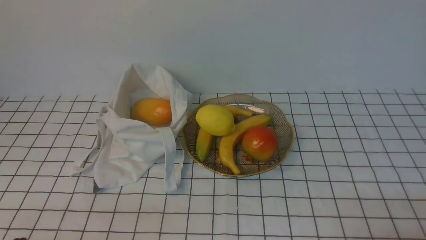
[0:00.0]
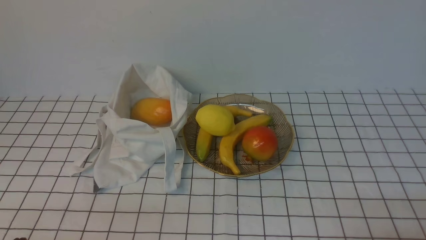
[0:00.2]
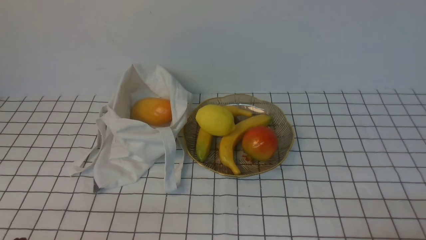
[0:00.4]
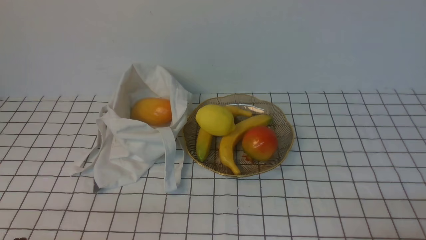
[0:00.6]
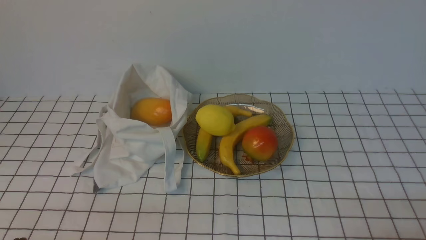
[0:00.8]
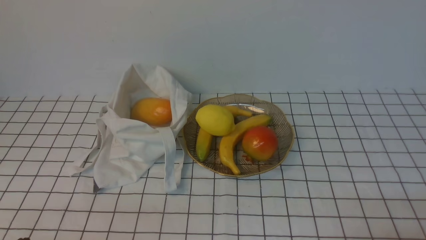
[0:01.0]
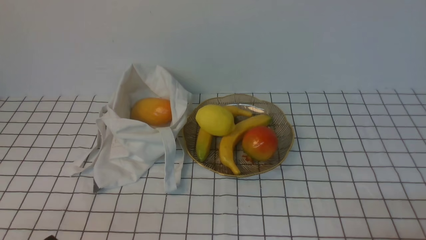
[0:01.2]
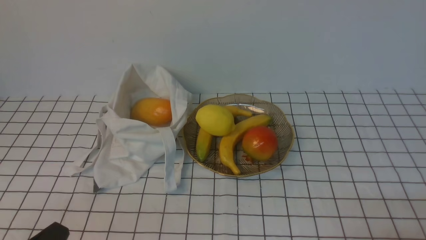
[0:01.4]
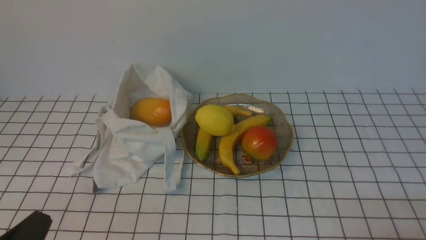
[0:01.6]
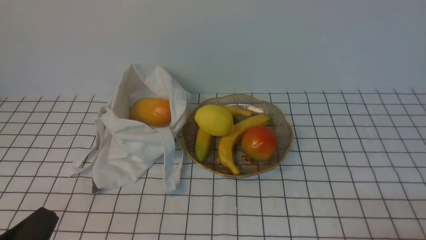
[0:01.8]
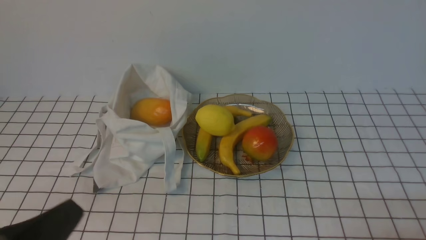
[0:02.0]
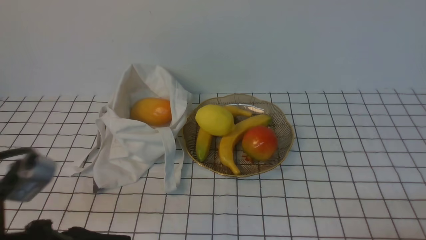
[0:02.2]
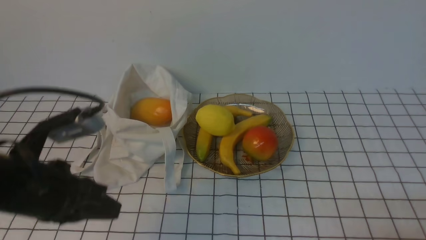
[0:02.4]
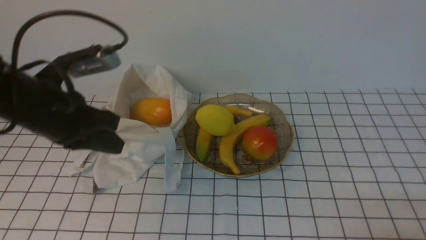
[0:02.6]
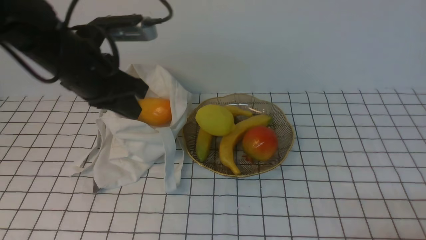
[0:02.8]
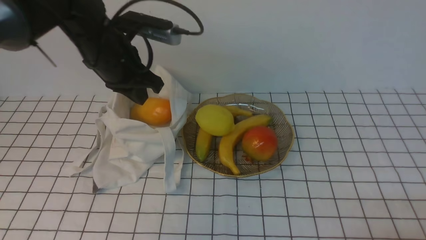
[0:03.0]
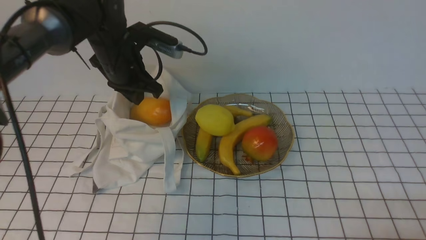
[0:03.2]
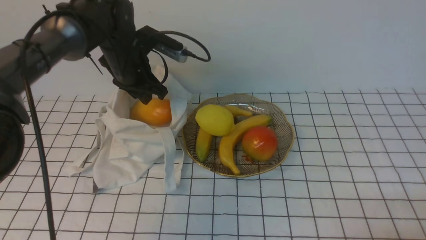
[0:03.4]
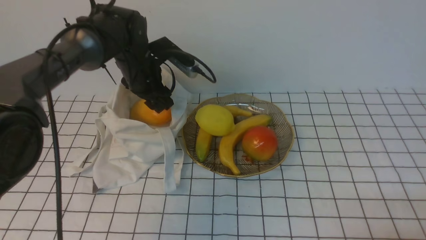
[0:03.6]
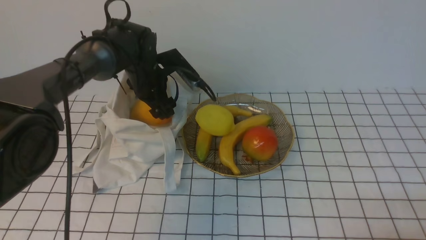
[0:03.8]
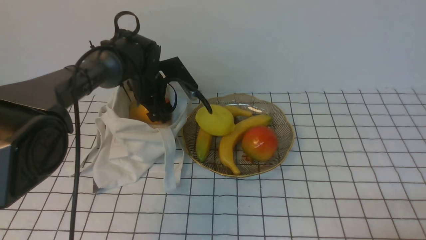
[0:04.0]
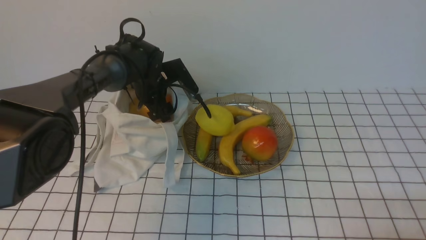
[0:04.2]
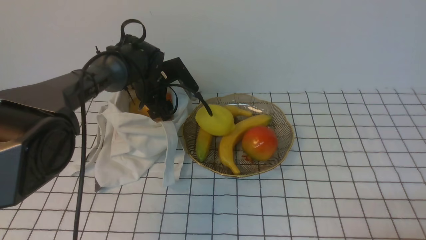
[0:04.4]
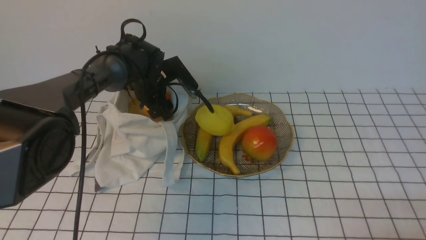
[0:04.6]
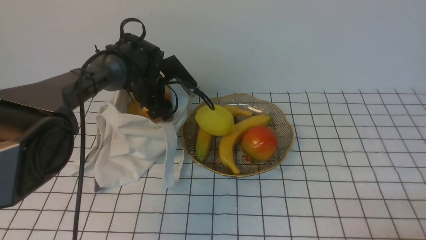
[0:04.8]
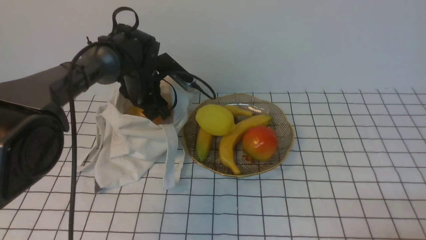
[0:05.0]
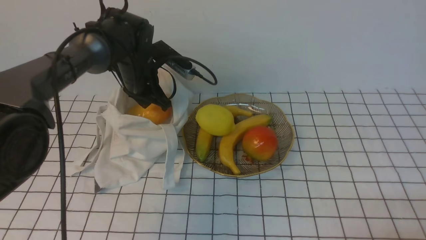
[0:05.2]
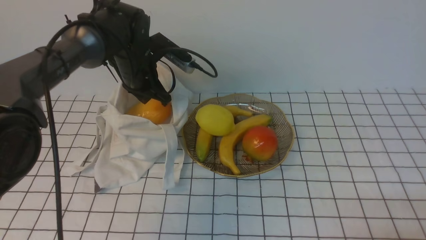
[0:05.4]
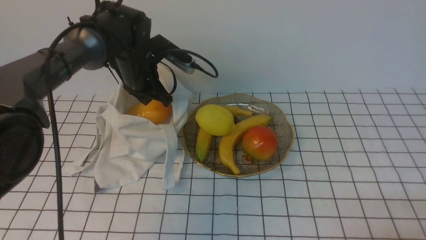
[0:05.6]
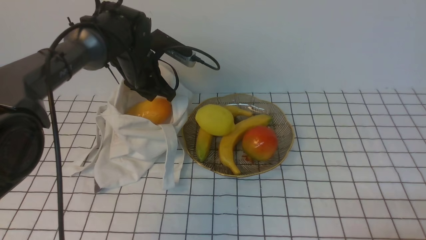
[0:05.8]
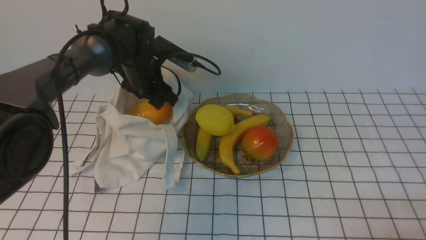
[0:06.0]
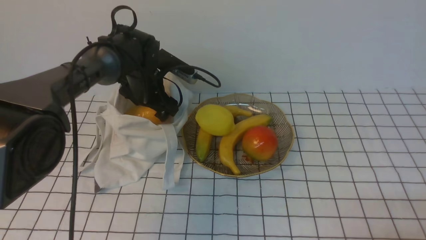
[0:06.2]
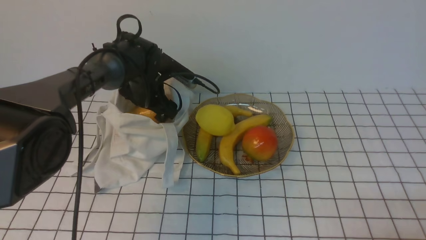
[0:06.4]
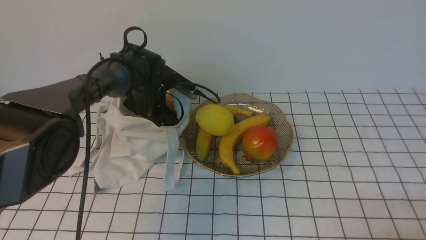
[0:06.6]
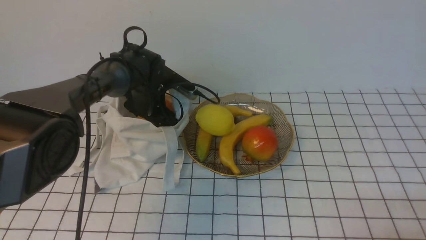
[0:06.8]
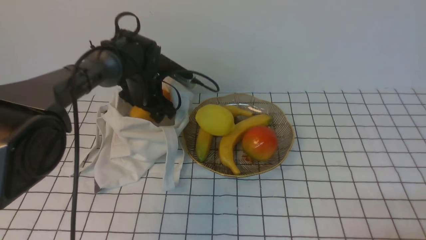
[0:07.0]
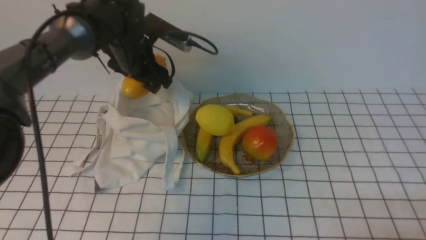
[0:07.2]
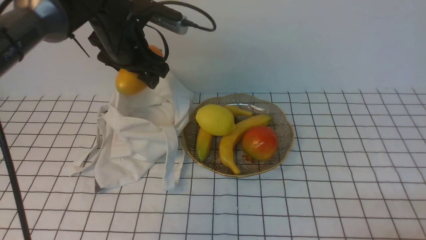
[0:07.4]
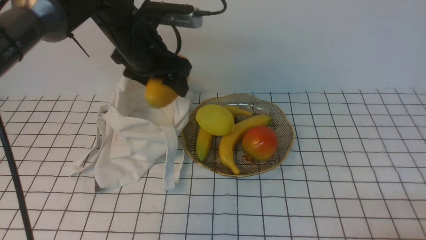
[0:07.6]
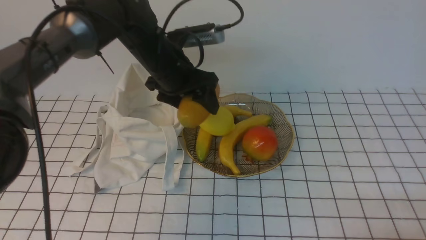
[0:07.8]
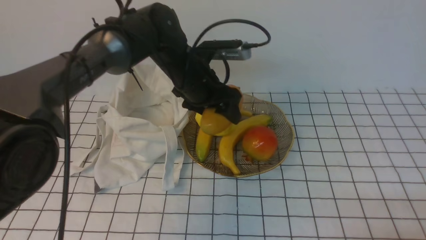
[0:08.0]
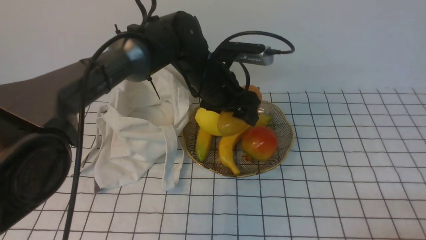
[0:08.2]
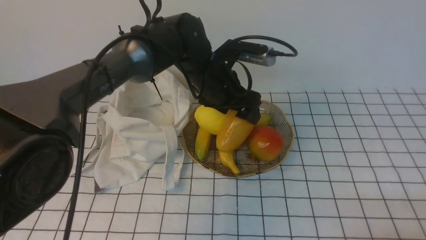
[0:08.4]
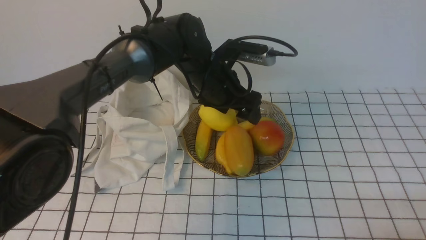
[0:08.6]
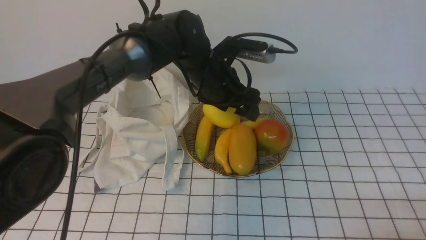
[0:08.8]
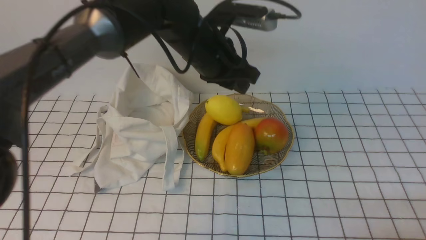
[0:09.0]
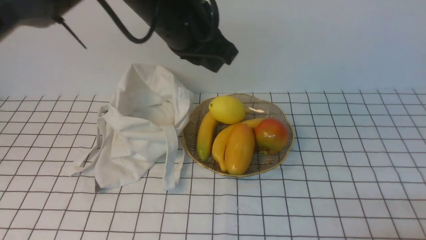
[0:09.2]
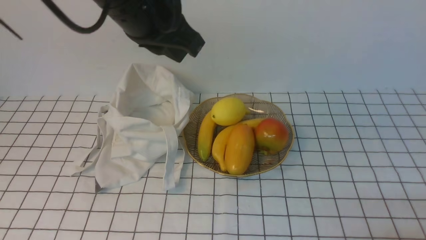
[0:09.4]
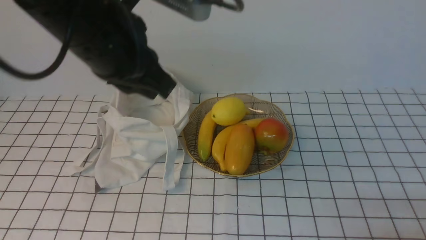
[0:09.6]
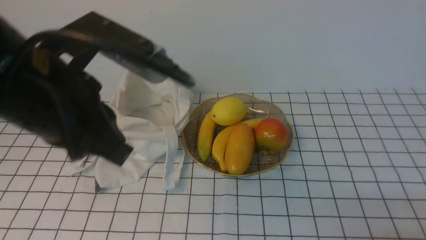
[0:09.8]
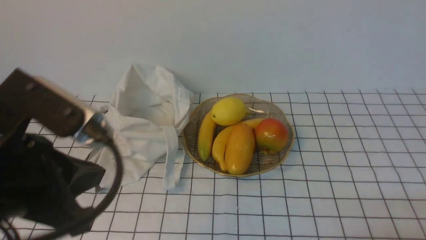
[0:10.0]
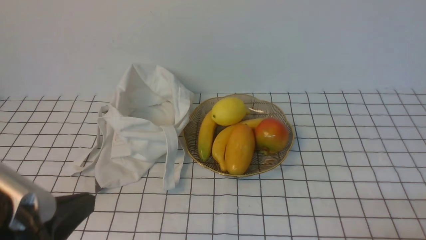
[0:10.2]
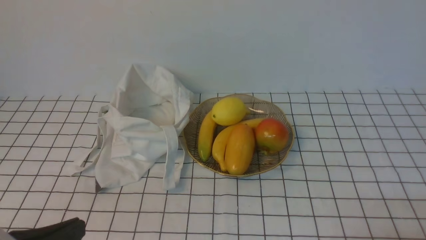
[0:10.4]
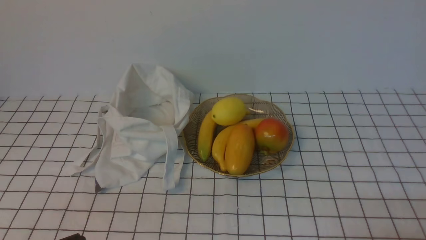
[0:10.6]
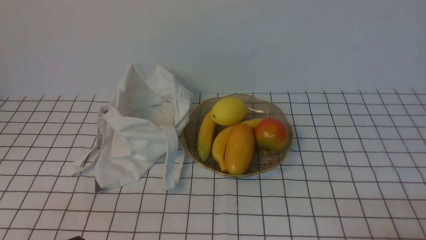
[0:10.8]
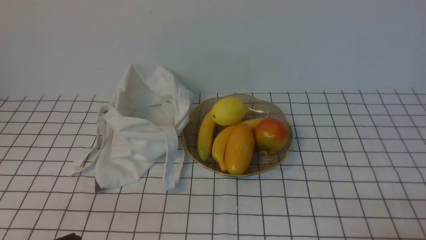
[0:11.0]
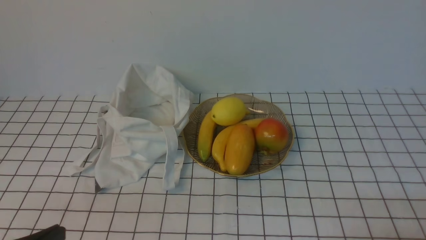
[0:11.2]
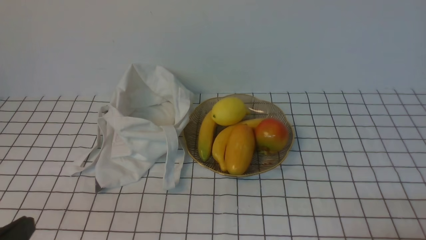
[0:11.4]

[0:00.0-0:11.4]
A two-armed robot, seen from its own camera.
Step, 0:00.0 to 0:06.8: use the left arm to grab a mango from the bag.
Step, 0:07.0 to 0:08.6: use the left arm to put the mango into the empty plate on the right.
0:01.4 to 0:02.8: The left gripper is displaced forward and upward by approximately 30 cm.
0:02.8 to 0:04.2: The left gripper heads forward and downward, covering about 20 cm, and opens its fingers.
0:04.2 to 0:05.6: The left gripper travels upward by approximately 5 cm, and closes its fingers.
0:05.6 to 0:07.2: The left gripper goes downward and returns, some 10 cm each way, and opens up.
0:07.2 to 0:08.6: The left gripper heads to the right, covering roughly 15 cm.
0:08.6 to 0:10.0: The left gripper is displaced backward and to the left by roughly 35 cm, and closes up.
0:10.0 to 0:11.4: The left gripper travels downward, backward and to the left by roughly 15 cm.

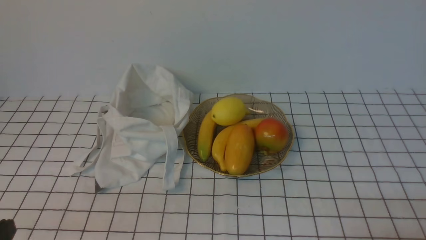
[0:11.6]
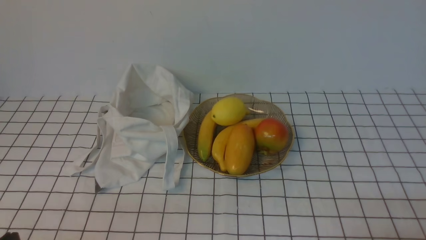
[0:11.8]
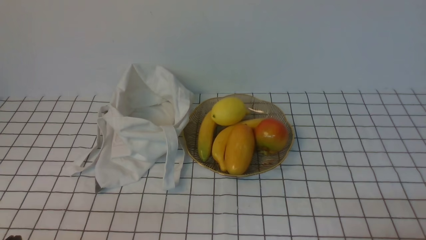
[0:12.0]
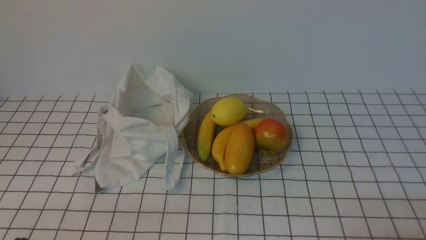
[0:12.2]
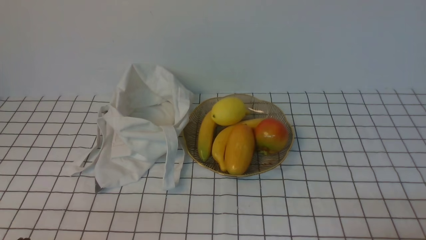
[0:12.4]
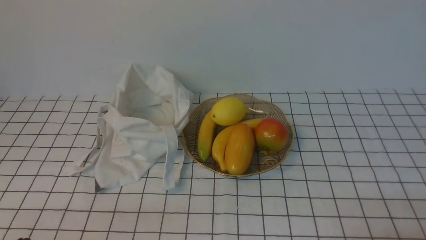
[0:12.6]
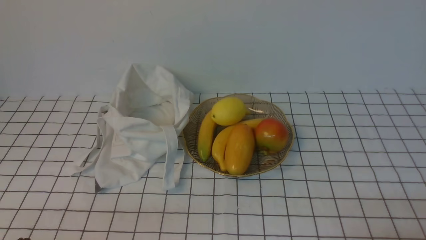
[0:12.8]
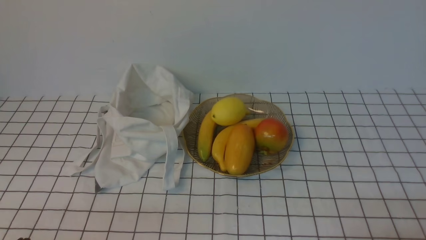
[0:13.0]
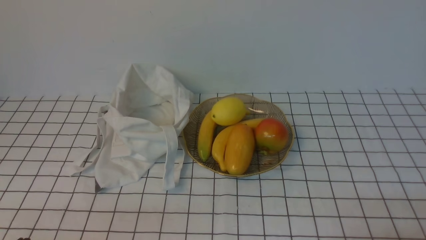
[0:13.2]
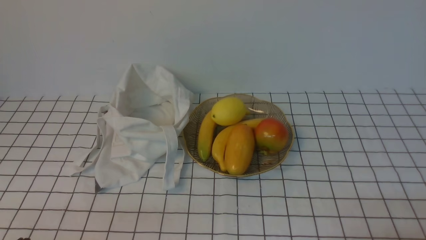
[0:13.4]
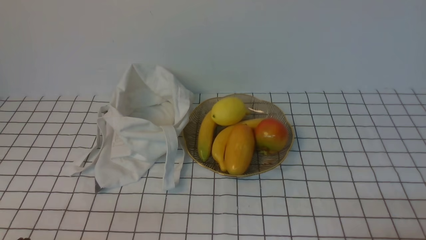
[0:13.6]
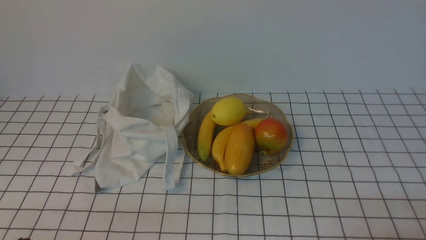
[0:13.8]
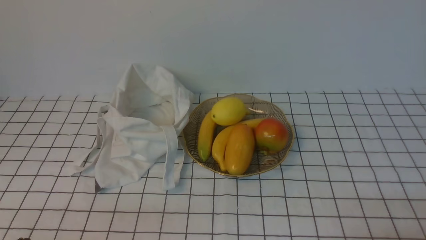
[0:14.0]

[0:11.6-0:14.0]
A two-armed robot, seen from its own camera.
0:12.8 to 0:14.0: Both grippers stay put.
